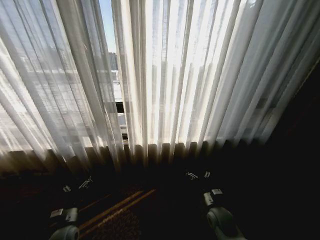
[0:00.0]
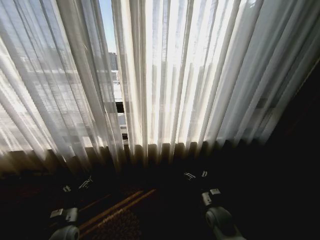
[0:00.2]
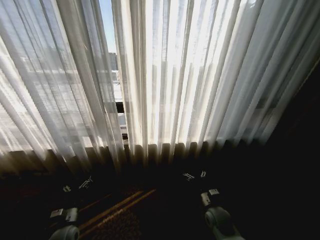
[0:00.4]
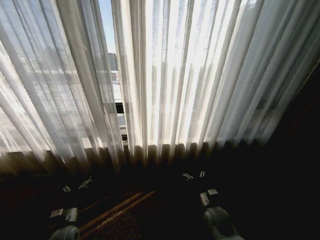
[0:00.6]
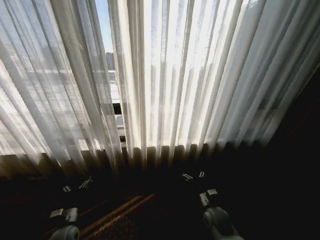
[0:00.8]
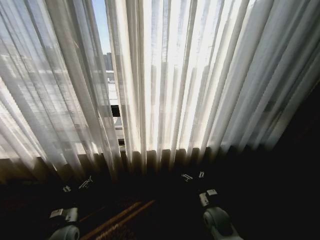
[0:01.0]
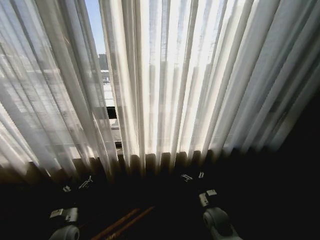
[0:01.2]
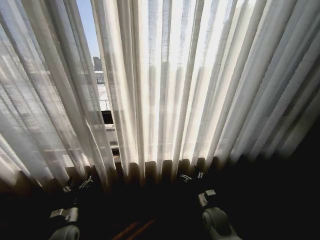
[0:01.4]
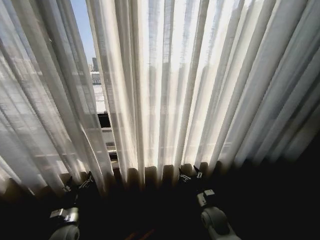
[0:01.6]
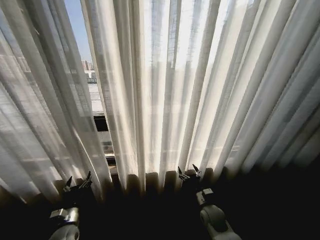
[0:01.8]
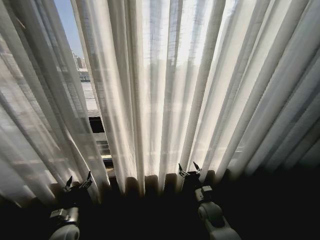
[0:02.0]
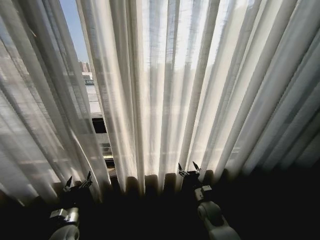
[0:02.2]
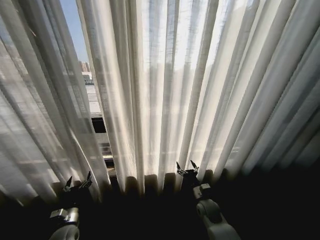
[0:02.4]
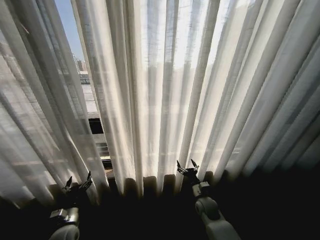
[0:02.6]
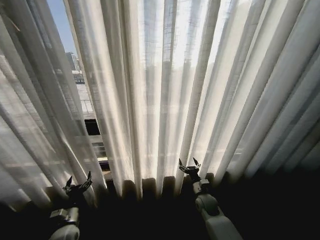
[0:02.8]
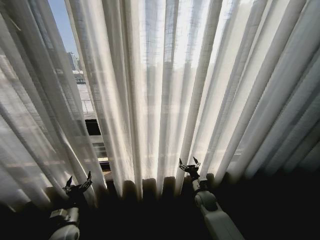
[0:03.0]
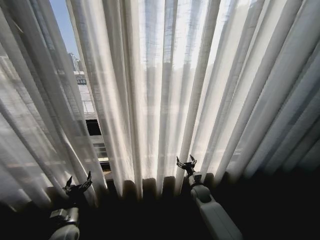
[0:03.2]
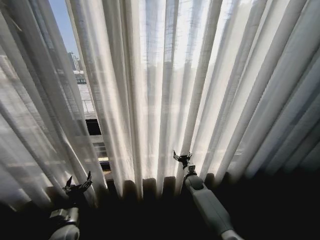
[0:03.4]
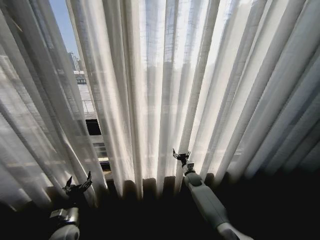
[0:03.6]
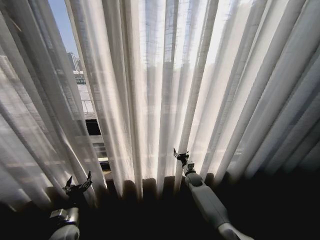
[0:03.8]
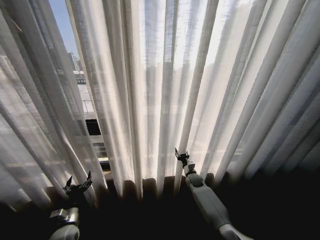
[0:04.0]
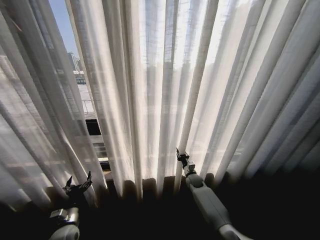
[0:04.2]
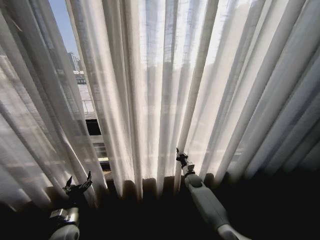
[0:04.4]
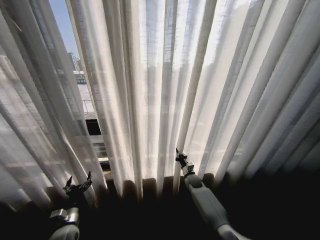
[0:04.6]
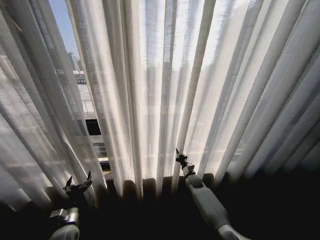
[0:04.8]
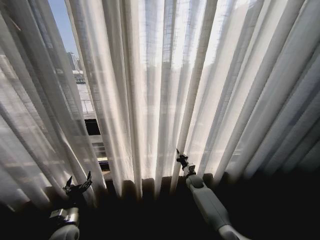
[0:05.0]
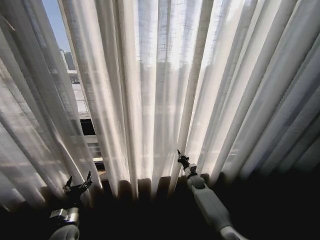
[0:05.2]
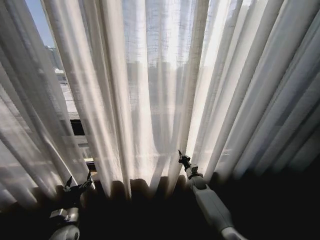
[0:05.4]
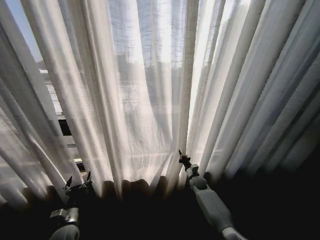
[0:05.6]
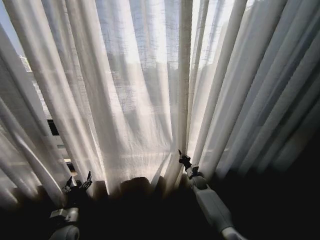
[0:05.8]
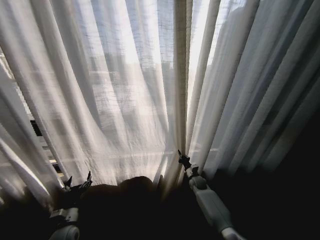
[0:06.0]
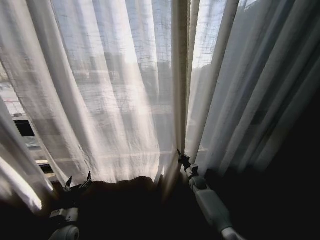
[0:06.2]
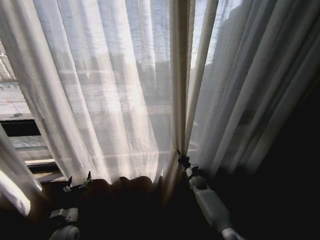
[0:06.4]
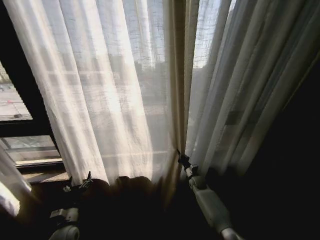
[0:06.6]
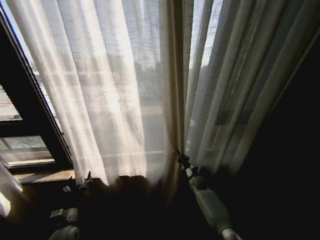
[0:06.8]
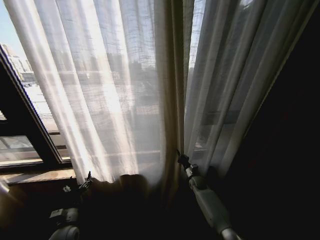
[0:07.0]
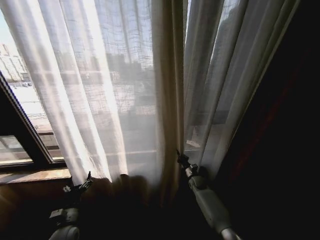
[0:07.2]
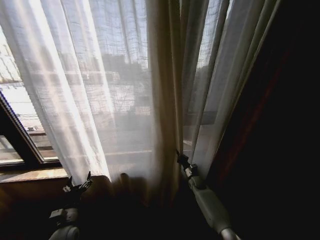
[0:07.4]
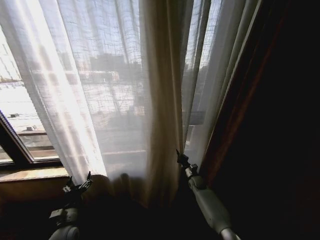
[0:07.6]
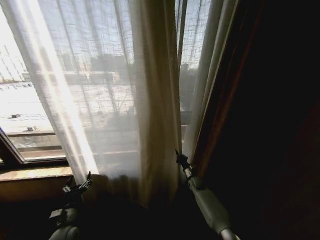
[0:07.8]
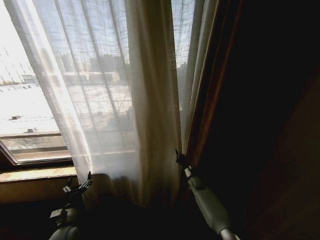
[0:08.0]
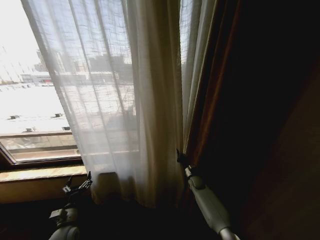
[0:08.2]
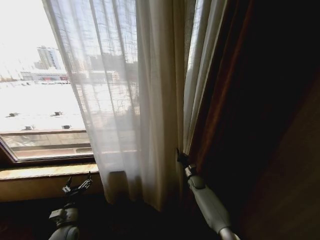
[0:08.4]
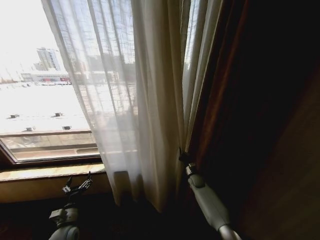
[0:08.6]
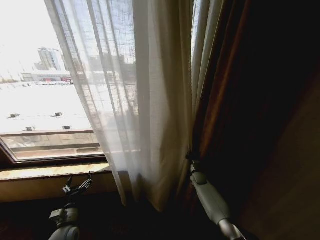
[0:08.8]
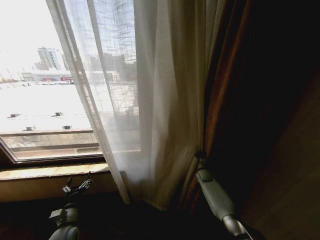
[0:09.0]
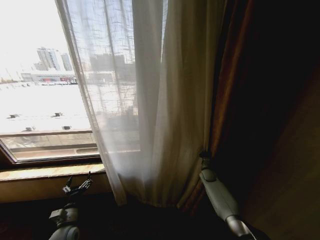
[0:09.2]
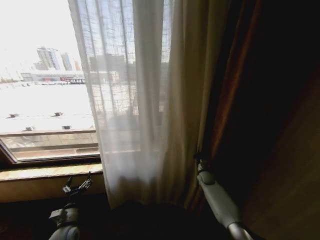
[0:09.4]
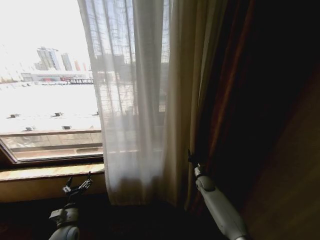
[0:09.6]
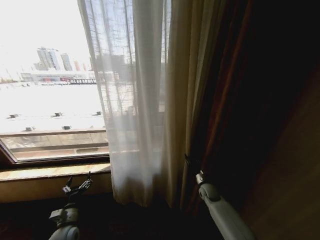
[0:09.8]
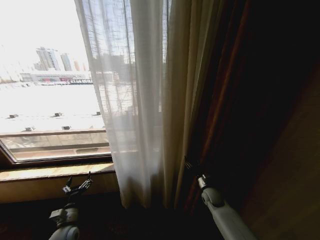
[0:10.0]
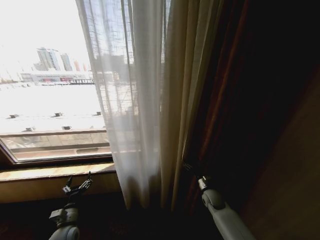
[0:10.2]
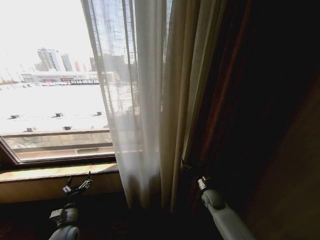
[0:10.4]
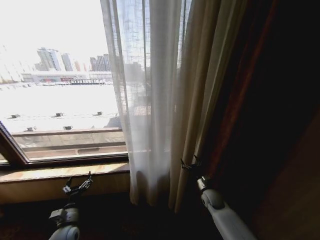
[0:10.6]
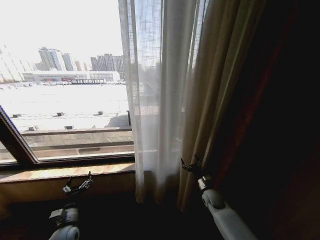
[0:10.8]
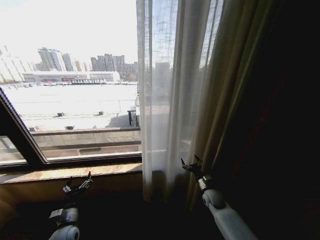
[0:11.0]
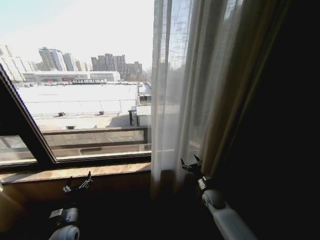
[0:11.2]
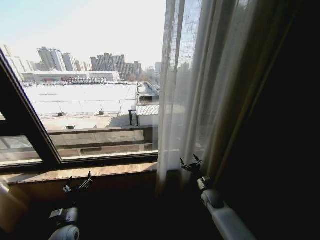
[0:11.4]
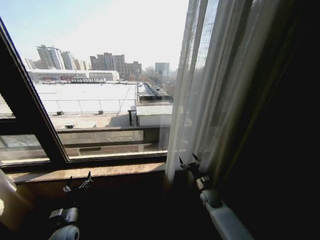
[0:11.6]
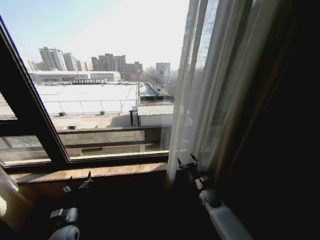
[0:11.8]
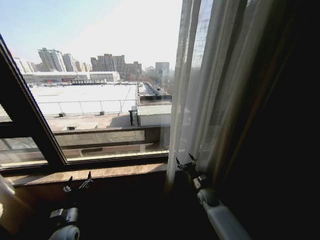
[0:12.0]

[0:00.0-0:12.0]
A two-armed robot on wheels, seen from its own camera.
Task of the whole recording: Open the curtains by pulling them apart, changing their state from closed to fully open.
0:01.6 to 0:03.0: The right gripper shifts roughly 10 cm forward.
0:03.0 to 0:04.4: The right gripper heads forward, covering about 10 cm, and closes up.
0:07.6 to 0:09.0: The right gripper moves to the right, approximately 5 cm.
0:09.0 to 0:10.4: The right gripper goes approximately 15 cm backward, and opens.

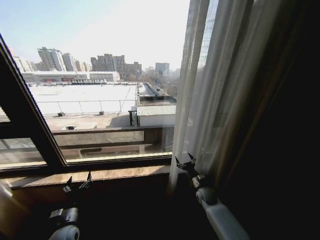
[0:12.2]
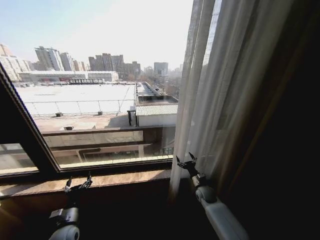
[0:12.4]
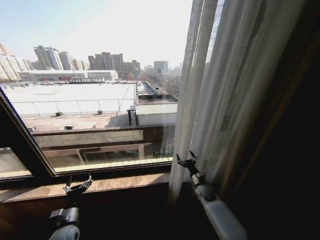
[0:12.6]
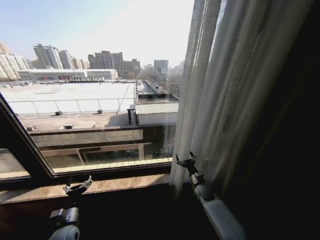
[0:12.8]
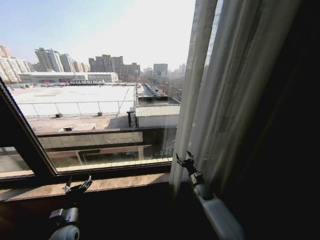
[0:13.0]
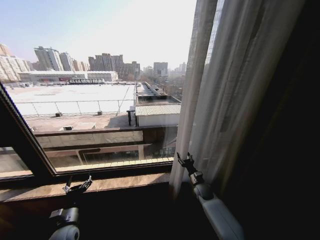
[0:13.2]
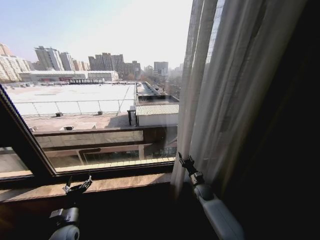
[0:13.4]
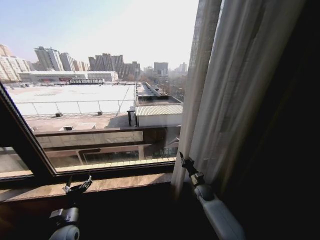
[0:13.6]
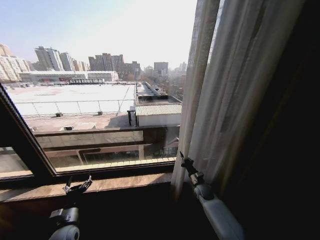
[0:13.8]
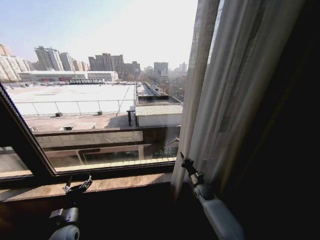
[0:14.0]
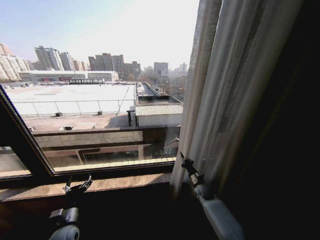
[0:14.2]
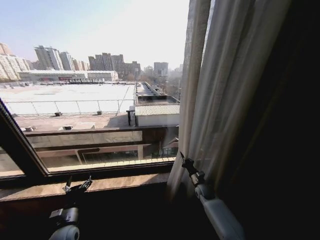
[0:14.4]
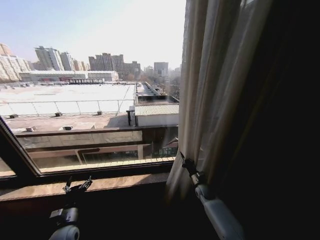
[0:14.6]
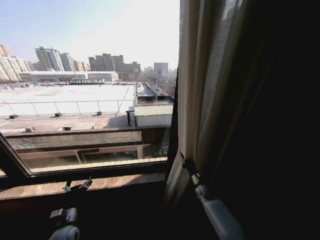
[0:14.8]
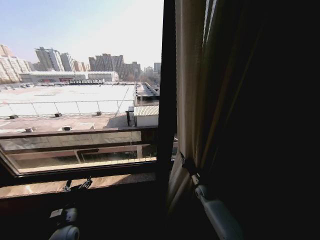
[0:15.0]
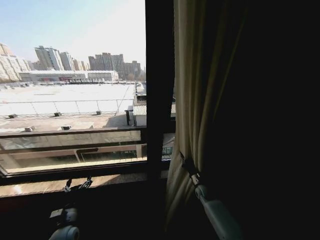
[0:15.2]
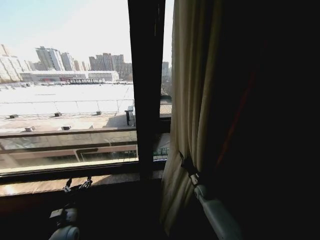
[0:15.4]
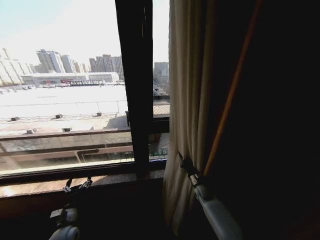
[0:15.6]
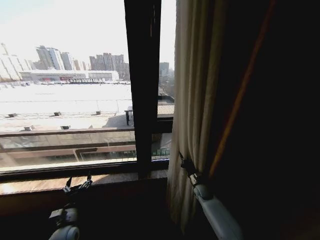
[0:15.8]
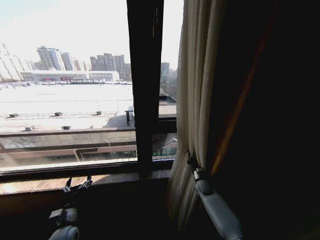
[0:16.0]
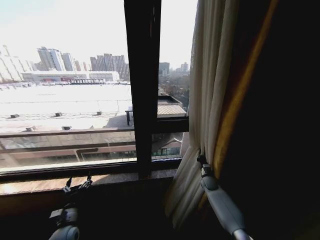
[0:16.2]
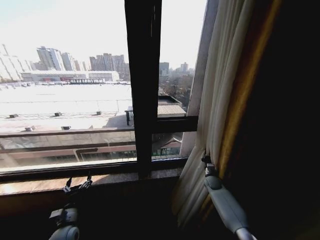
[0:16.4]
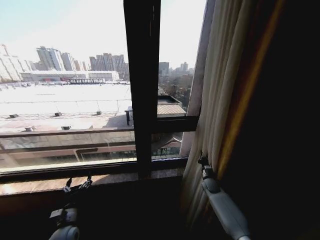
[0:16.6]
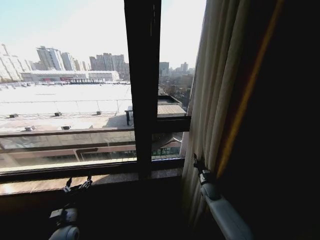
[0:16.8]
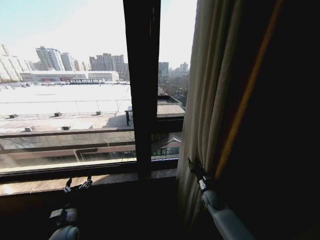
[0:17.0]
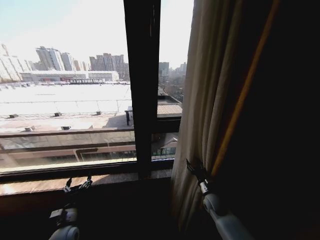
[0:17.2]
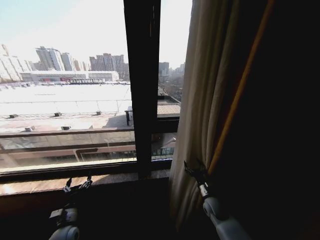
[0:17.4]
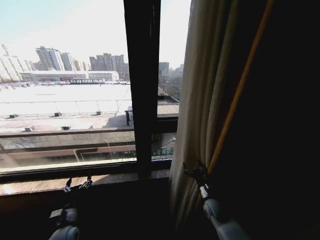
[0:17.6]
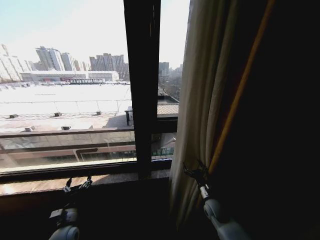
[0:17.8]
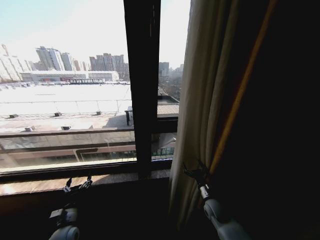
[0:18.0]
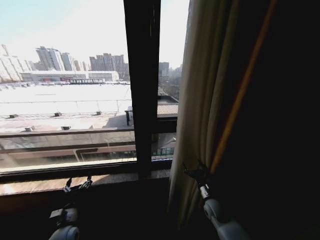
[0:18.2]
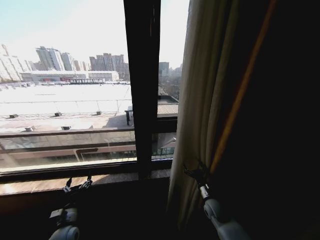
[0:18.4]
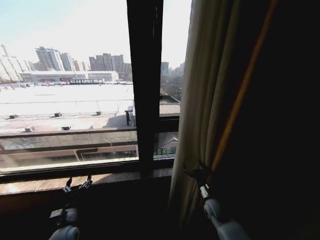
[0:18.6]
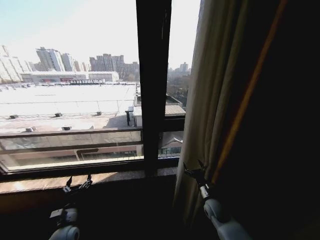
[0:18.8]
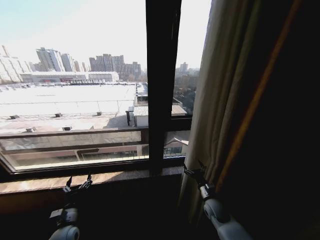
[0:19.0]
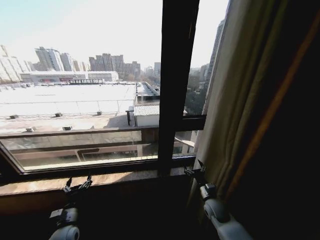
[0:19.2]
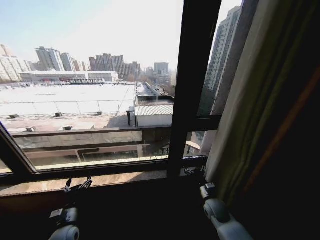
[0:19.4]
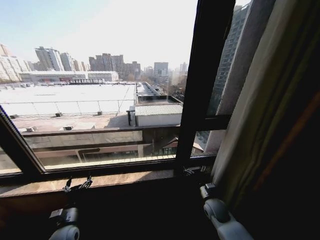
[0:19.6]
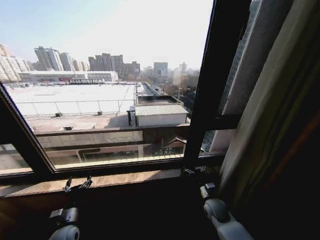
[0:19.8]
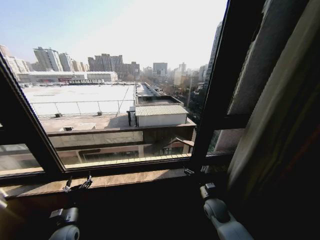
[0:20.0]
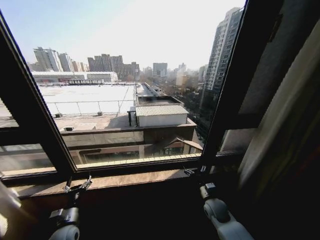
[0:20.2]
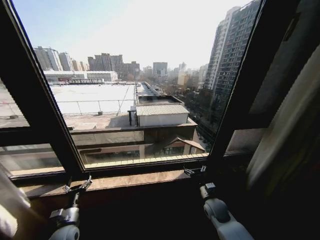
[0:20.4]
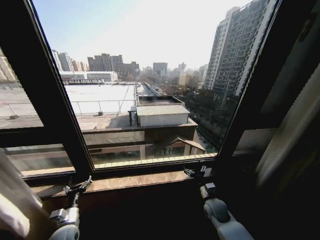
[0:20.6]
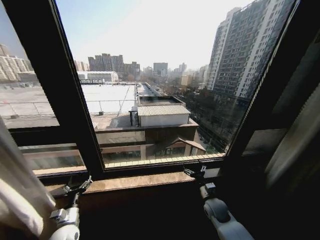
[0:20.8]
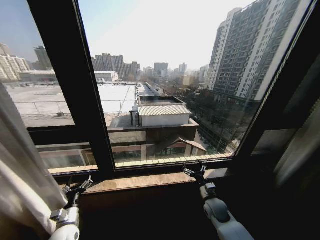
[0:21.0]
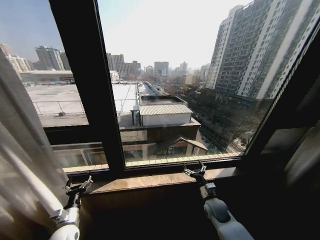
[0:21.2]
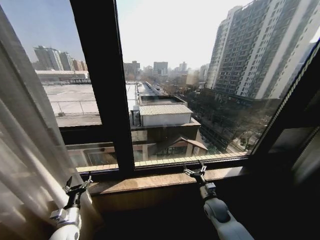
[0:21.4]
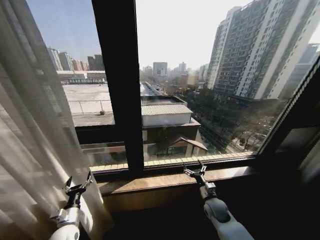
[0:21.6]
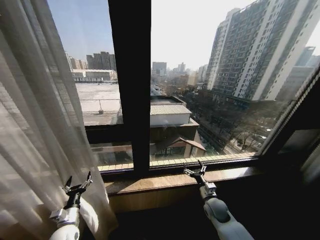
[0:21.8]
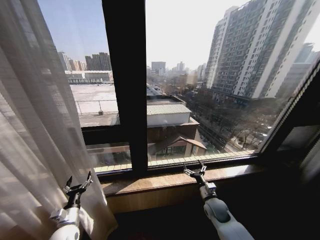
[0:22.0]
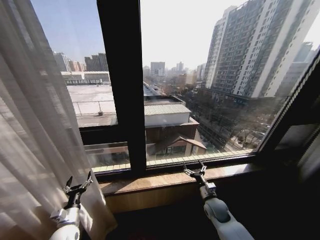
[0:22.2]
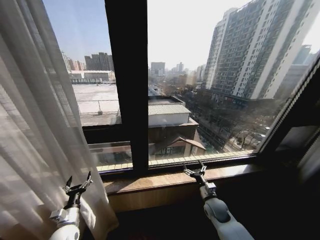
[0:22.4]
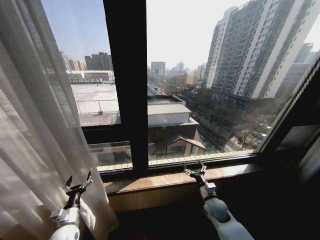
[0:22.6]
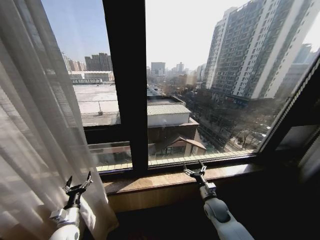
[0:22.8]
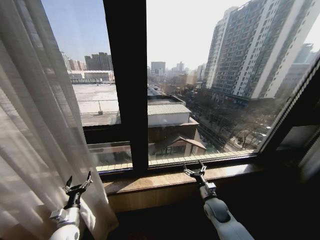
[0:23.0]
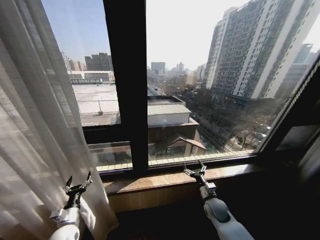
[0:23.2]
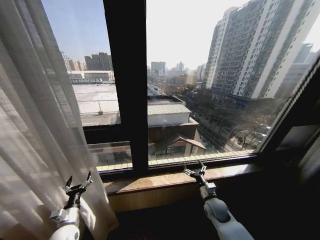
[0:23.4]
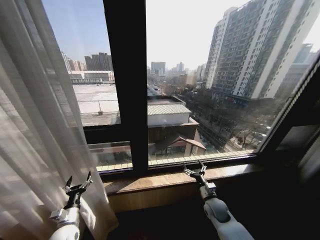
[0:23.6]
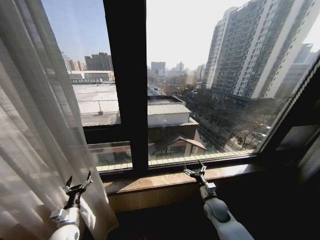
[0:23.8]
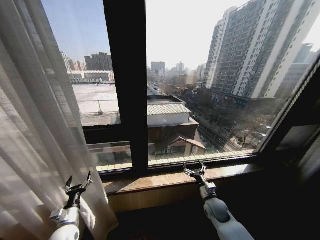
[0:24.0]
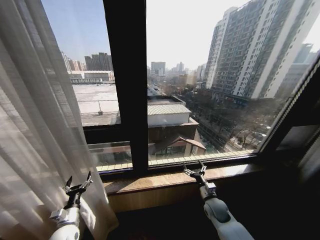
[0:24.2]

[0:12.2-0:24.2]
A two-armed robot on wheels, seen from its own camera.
Task of the whole recording: Open the curtains by pulling them apart, changing their state from closed to fully open.
0:12.2 to 0:13.8: The right gripper closes up.
0:15.2 to 0:16.6: The right gripper is displaced to the right by some 5 cm.
0:16.6 to 0:18.2: The right gripper is displaced backward and to the left by some 15 cm, and opens its fingers.
0:22.6 to 0:24.2: Neither gripper changes place.
